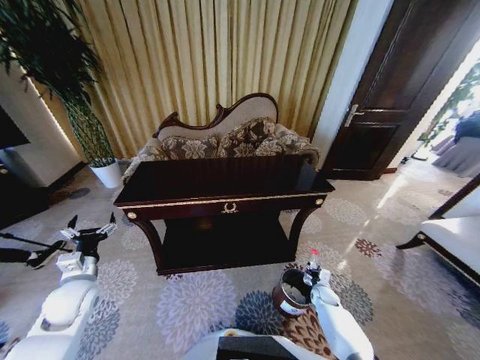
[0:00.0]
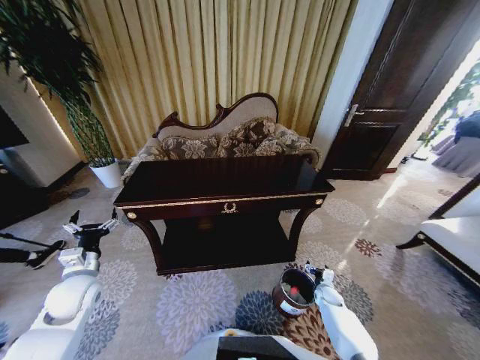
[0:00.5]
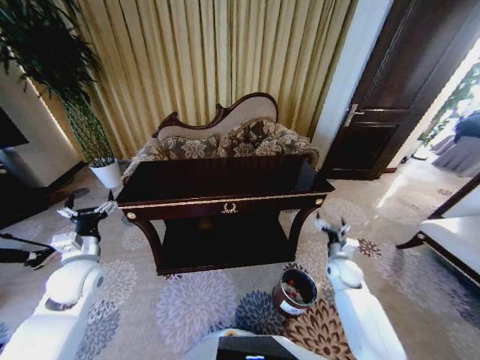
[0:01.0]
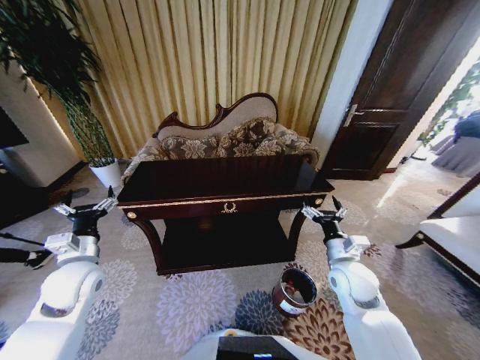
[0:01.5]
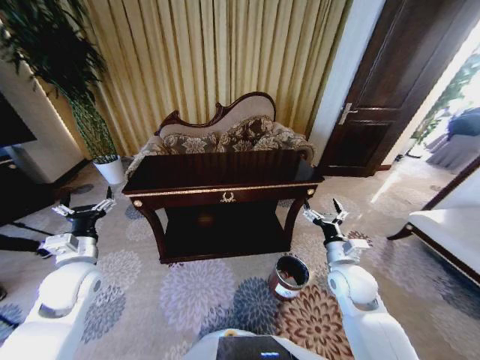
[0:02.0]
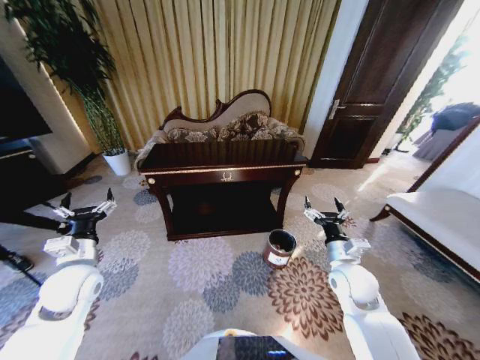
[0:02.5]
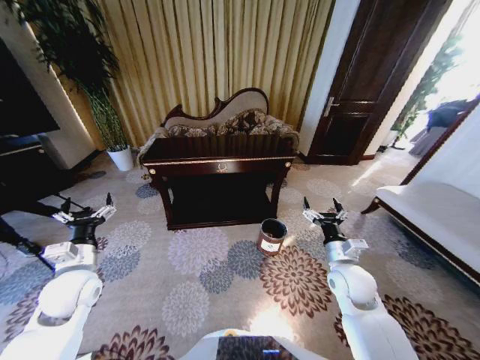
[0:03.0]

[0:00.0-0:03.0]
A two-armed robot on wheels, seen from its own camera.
Task of the whole recording: Move to the front of the table and place the trash on the table into the trash bin.
0:00.0 to 0:01.5: The left gripper moves upward, about 5 cm. The right gripper shifts about 30 cm upward, and opens.

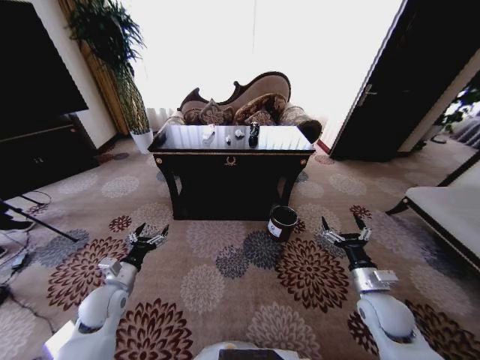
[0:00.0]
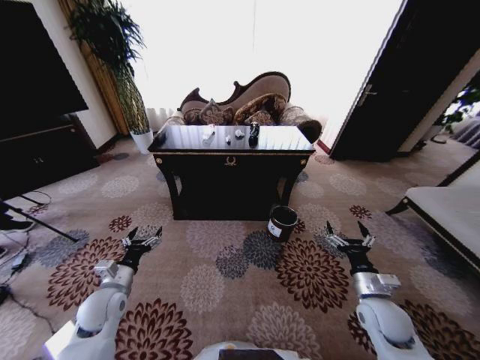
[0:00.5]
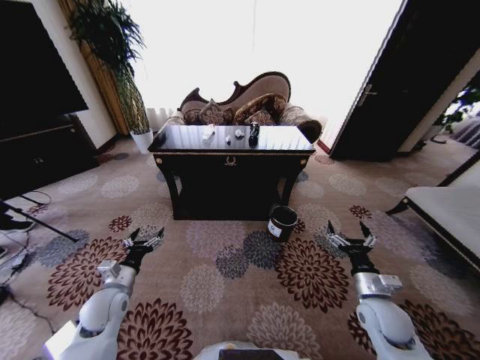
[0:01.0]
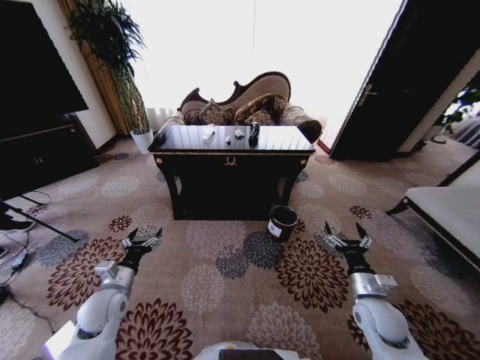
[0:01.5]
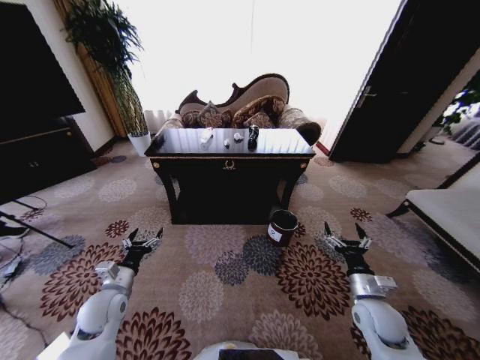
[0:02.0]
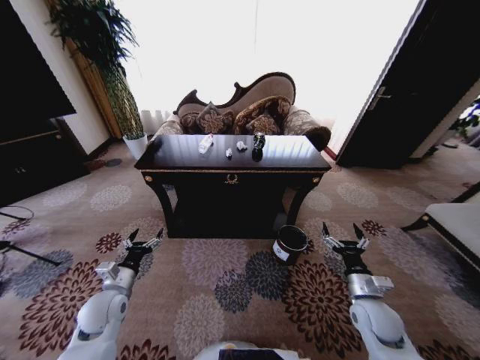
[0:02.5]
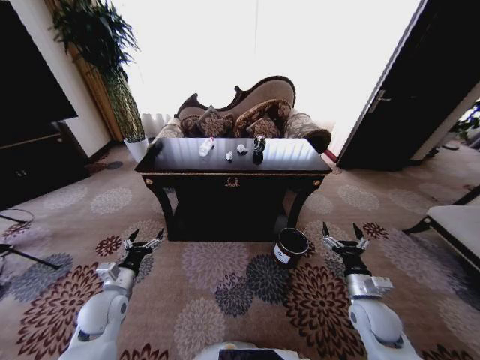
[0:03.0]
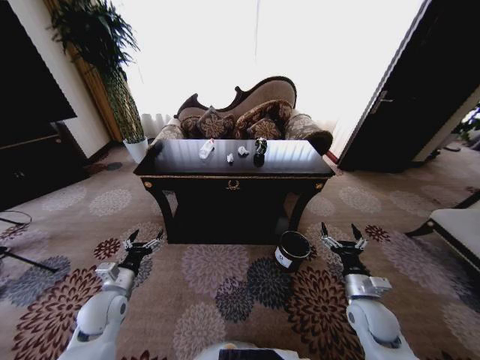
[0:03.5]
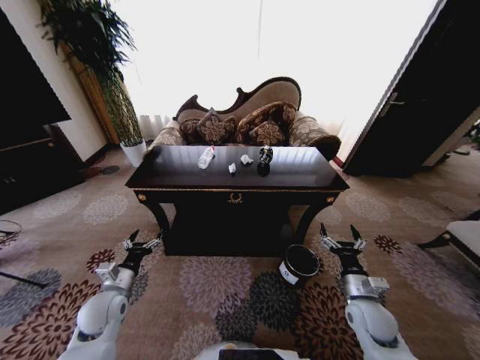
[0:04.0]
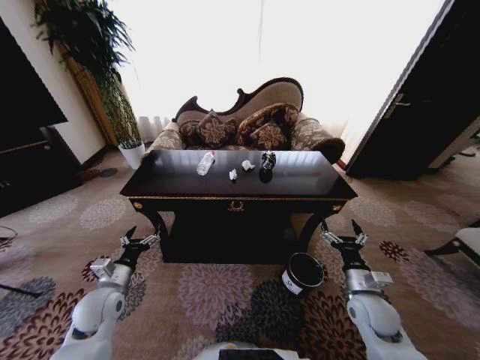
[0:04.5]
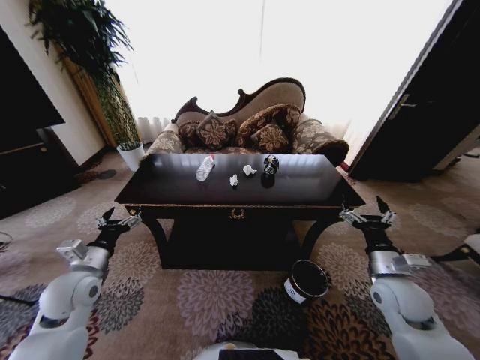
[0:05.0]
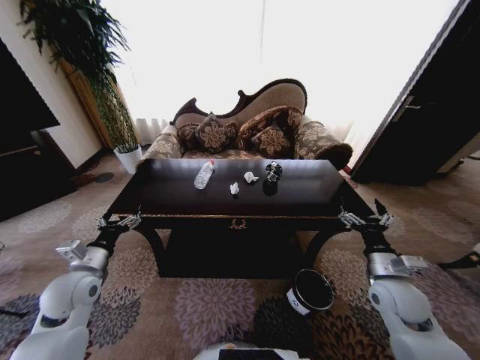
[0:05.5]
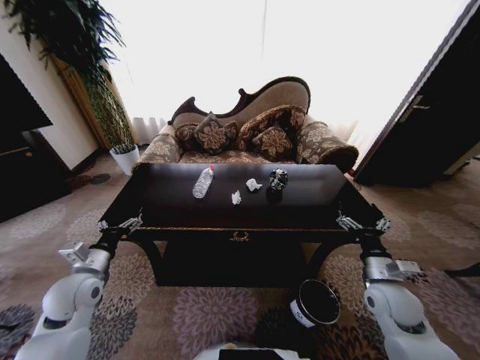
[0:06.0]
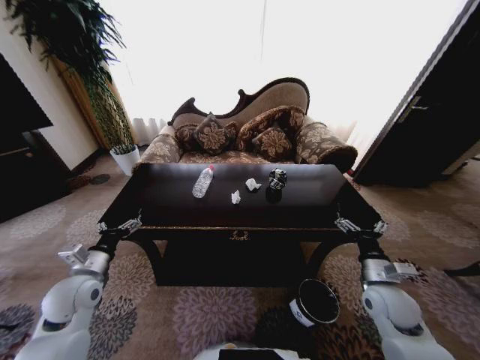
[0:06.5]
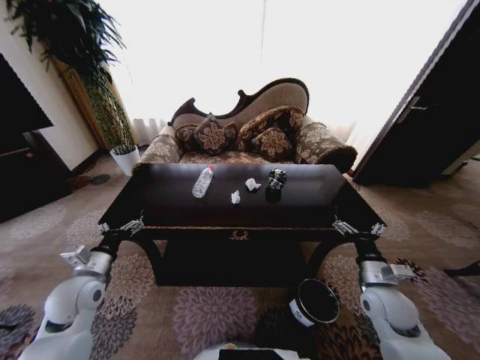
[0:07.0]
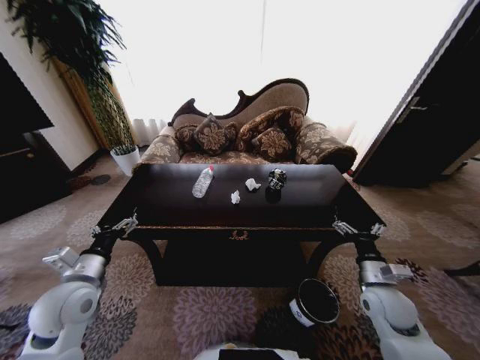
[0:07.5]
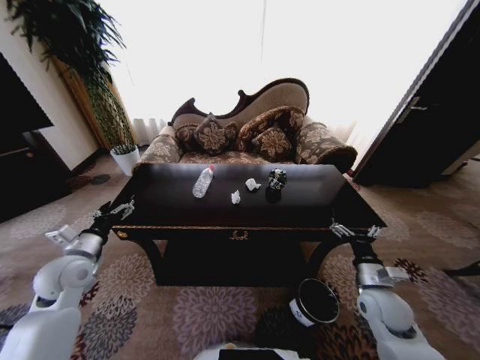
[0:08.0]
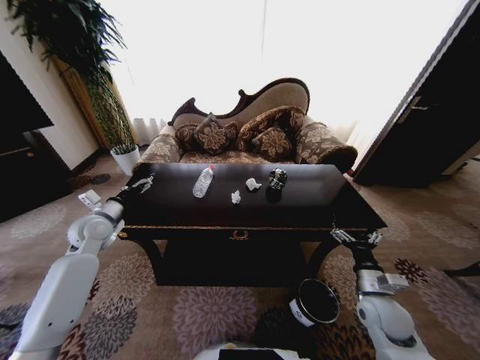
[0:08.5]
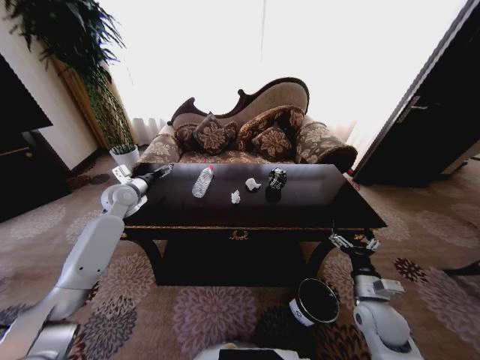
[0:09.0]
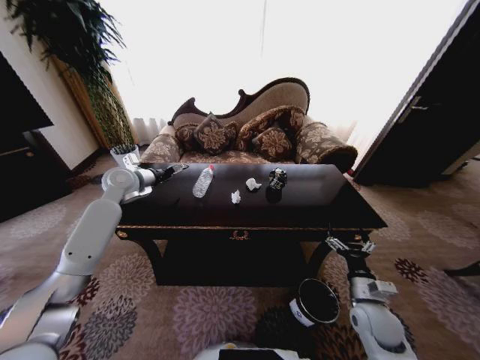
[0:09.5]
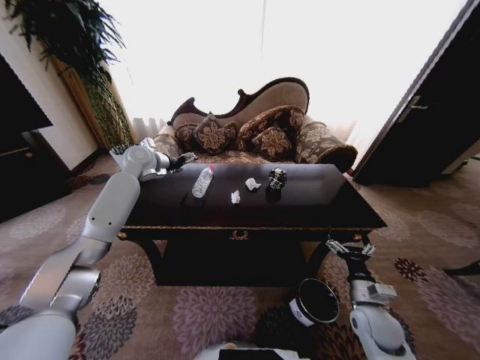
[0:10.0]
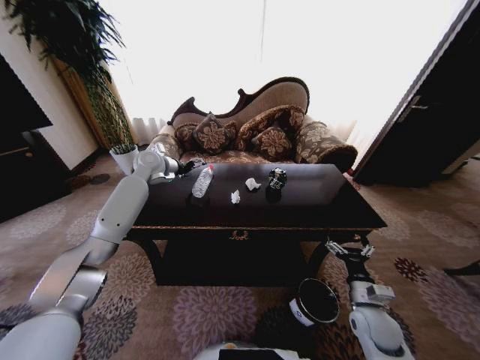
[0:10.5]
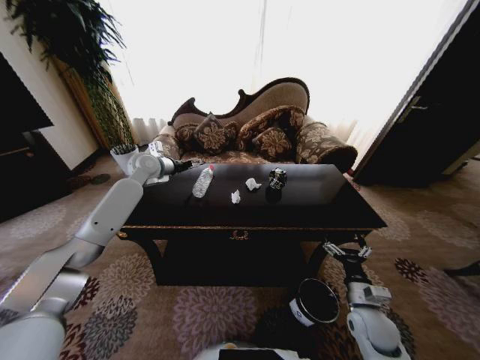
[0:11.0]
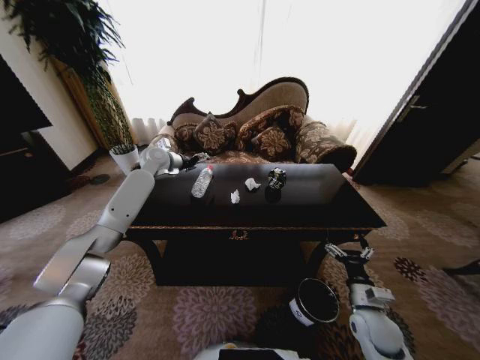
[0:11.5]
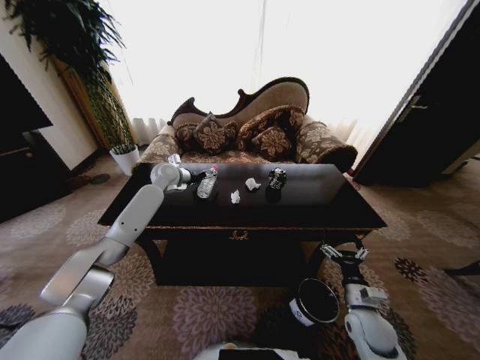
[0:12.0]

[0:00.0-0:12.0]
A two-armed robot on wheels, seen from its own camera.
Task of the whole recording: Move to the front of the table and place the trash on the table into the trash bin.
0:04.0 to 0:06.0: The two grippers go roughly 5 cm upward.
0:06.0 to 0:08.0: The left gripper moves some 5 cm.
0:08.0 to 0:10.0: The right gripper shifts by some 5 cm, while the left gripper shifts approximately 30 cm forward and upward.
0:10.0 to 0:12.0: The left gripper moves downward and to the right, about 10 cm.

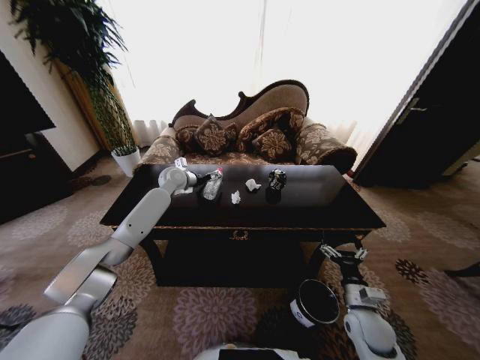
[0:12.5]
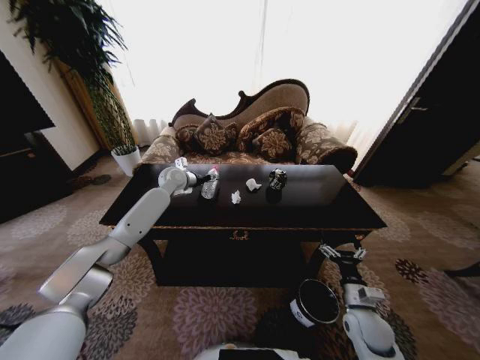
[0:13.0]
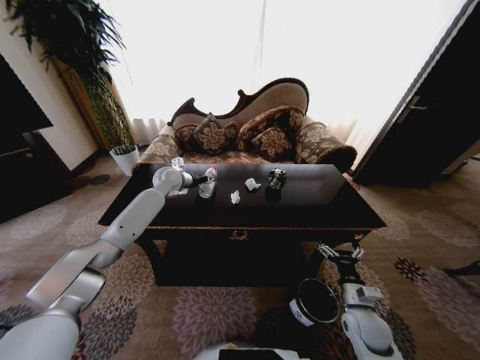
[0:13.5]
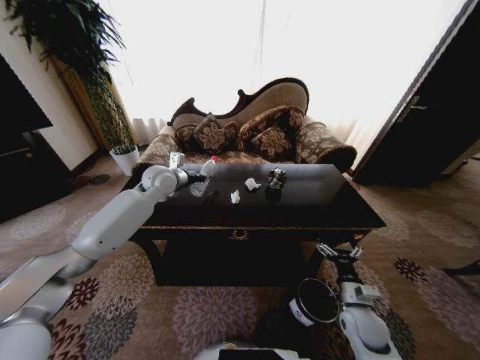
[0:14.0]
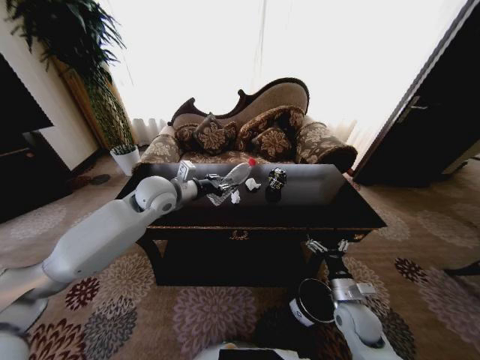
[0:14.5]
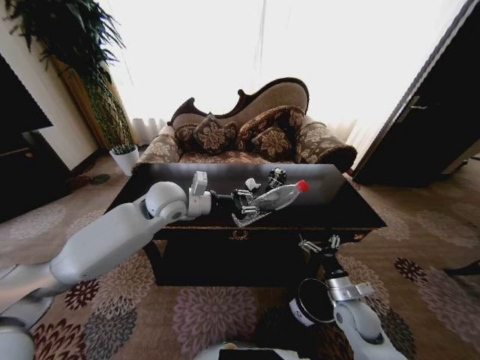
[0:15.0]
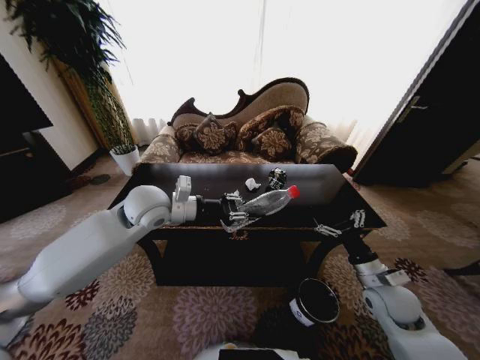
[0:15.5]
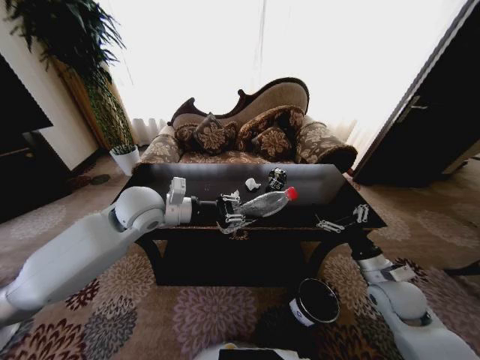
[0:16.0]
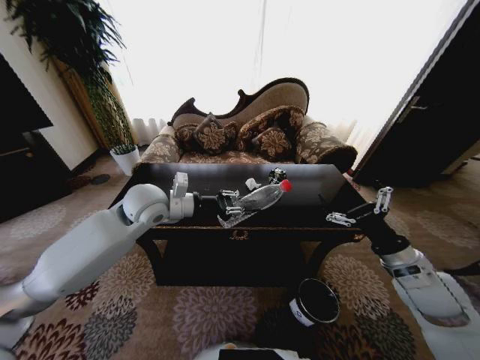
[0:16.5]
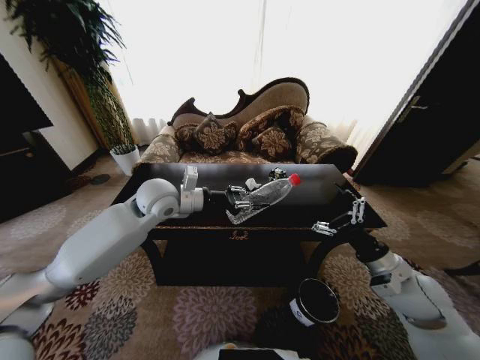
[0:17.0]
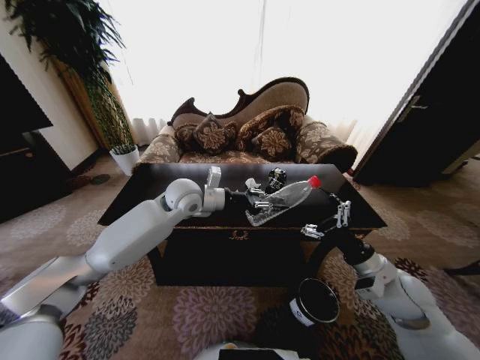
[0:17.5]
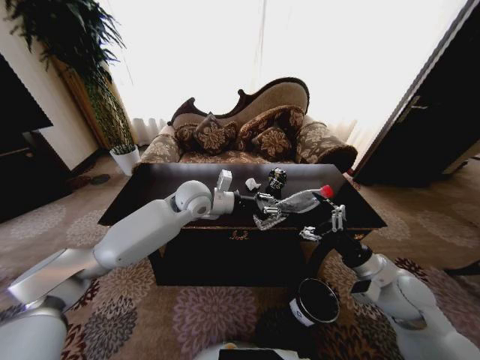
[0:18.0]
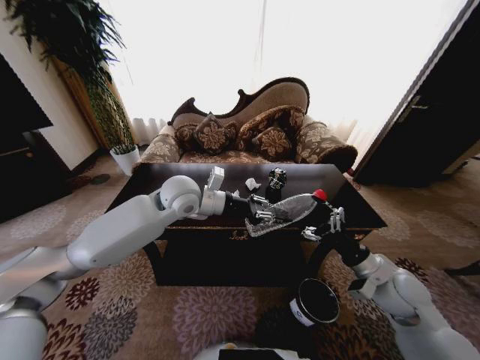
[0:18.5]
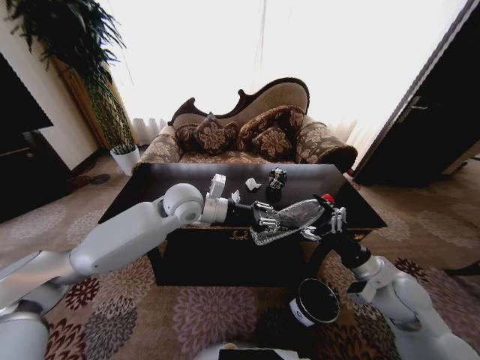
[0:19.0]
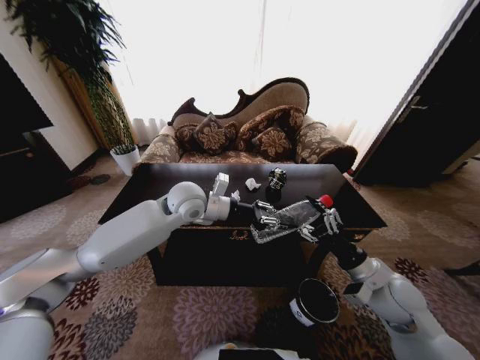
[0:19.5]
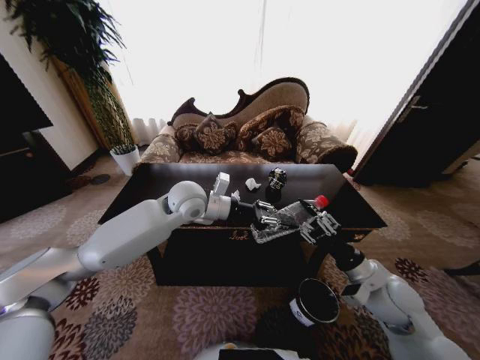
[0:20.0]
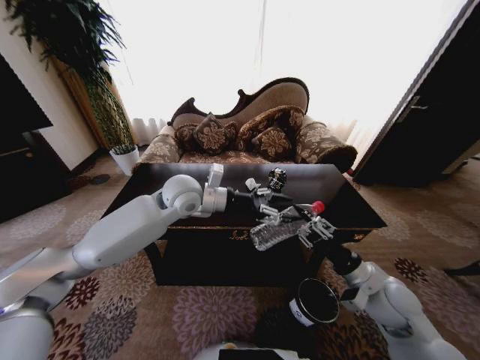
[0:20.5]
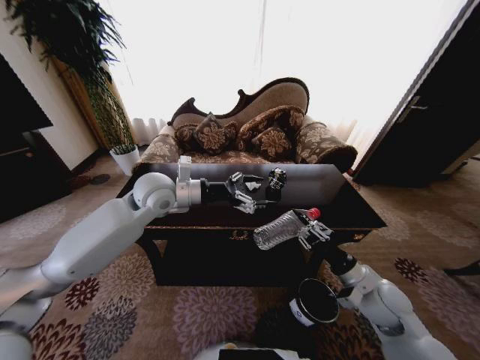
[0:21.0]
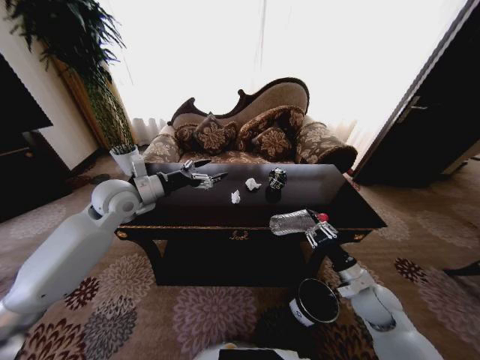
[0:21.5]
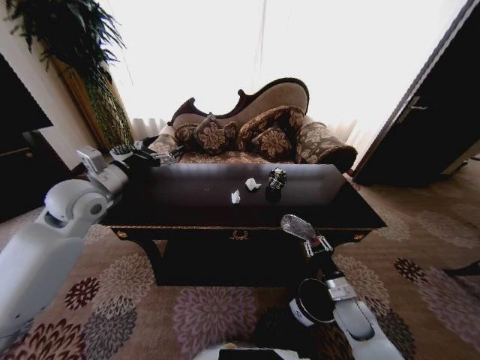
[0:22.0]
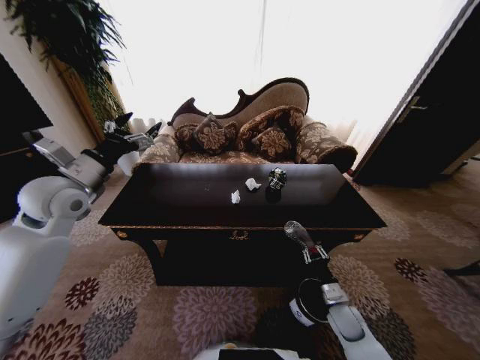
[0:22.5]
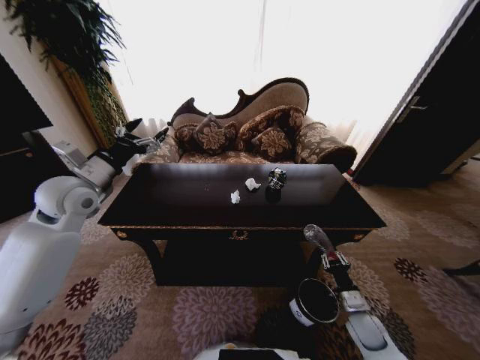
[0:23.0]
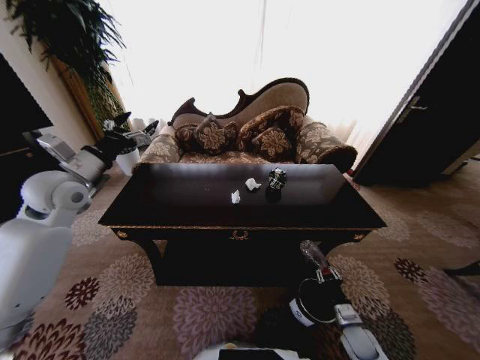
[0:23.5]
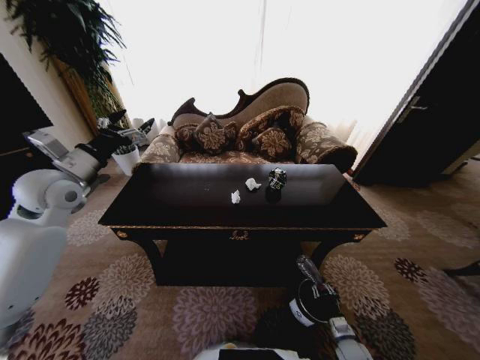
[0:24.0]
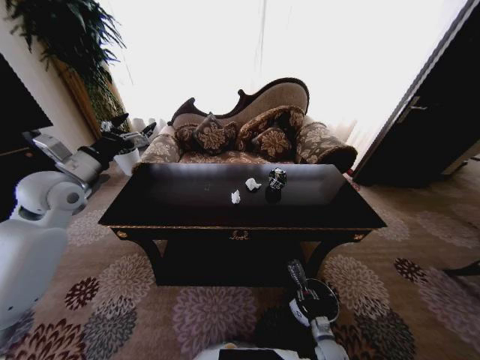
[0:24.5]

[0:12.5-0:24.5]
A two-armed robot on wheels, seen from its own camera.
Task of the whole recording: Move to the front of the table and place the trash on the table into the trash bin.
0:12.5 to 0:14.5: The left gripper is displaced backward and upward by some 20 cm, and closes.
0:14.5 to 0:16.5: The right gripper shifts some 20 cm upward and to the right.
0:16.5 to 0:18.5: The left gripper is displaced to the right by about 10 cm.
0:18.5 to 0:20.5: The left gripper opens its fingers; the right gripper closes.
0:20.5 to 0:22.5: The right gripper is displaced downward by about 20 cm, while the left gripper is displaced to the left by about 25 cm, and opens its fingers.
0:22.5 to 0:24.5: The right gripper shifts some 20 cm downward and backward.
